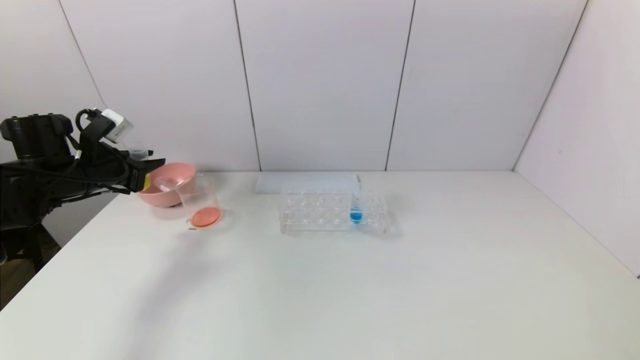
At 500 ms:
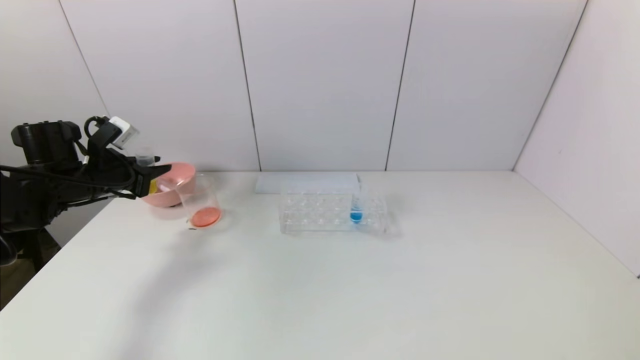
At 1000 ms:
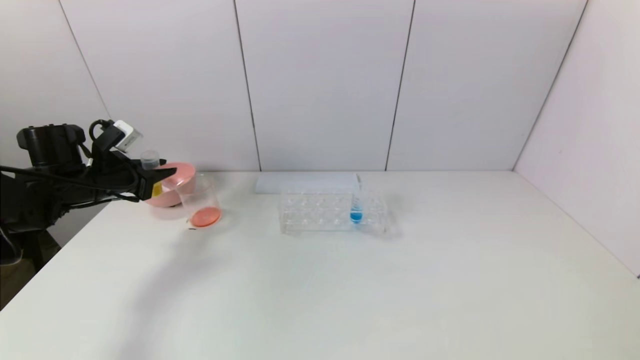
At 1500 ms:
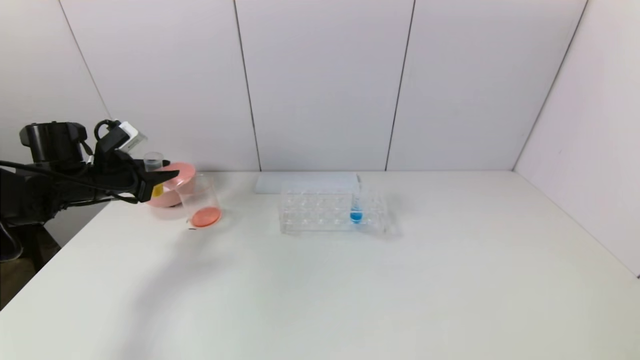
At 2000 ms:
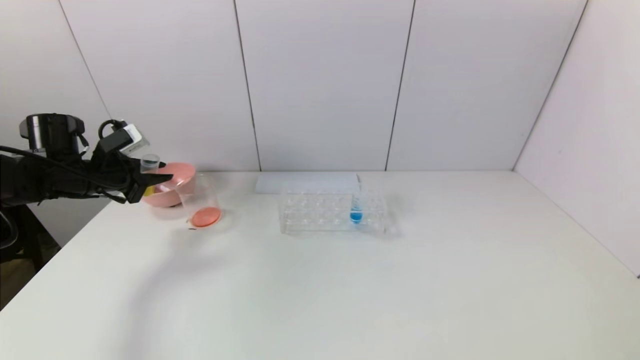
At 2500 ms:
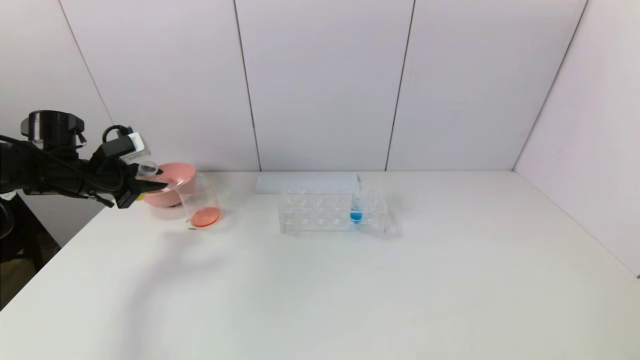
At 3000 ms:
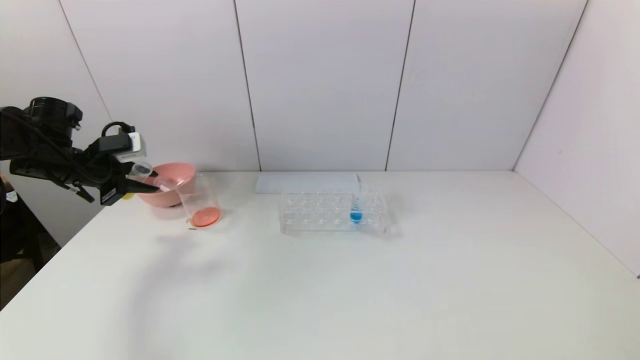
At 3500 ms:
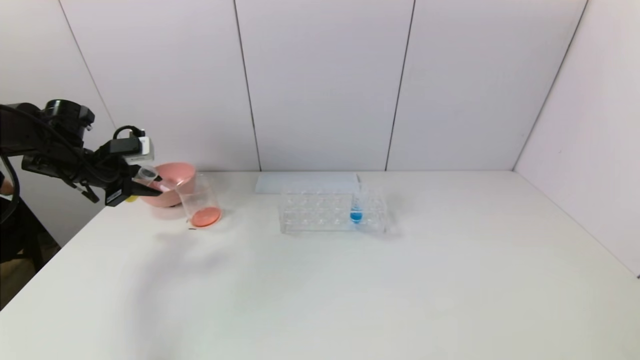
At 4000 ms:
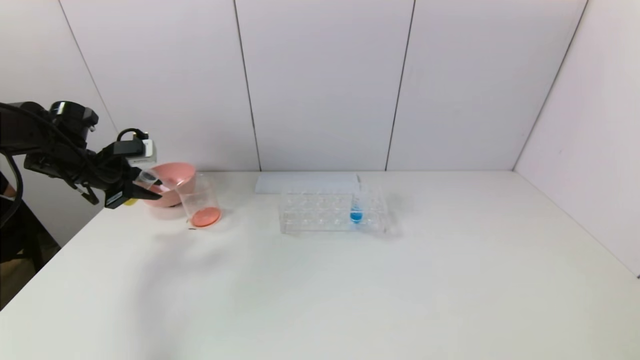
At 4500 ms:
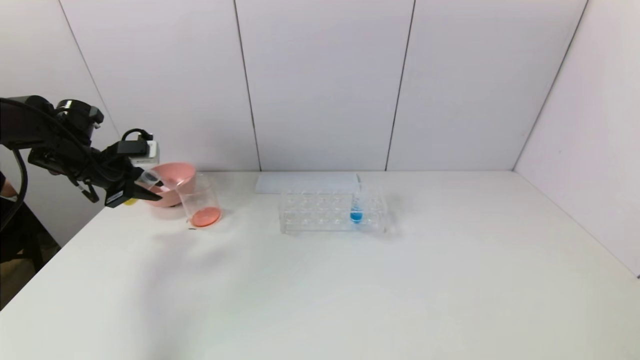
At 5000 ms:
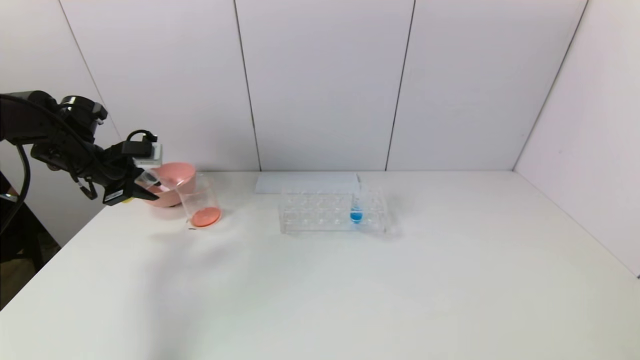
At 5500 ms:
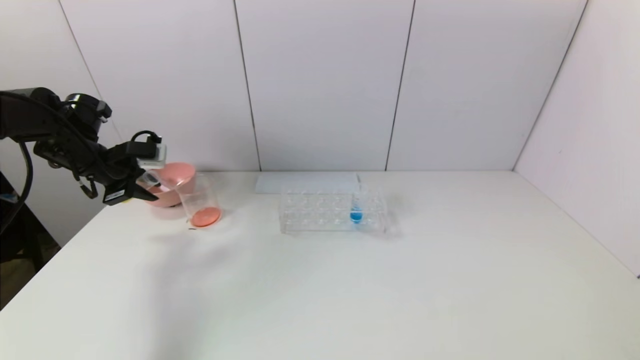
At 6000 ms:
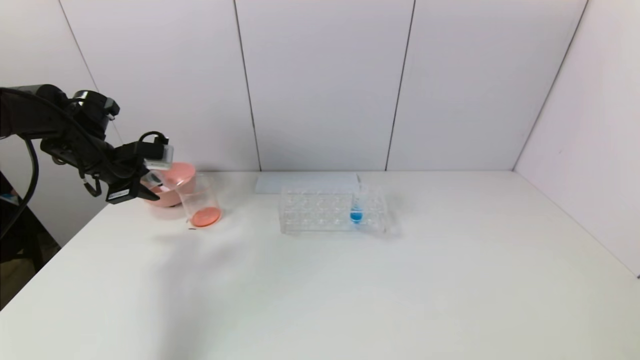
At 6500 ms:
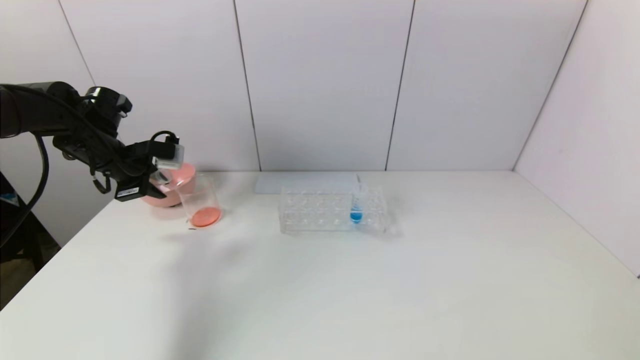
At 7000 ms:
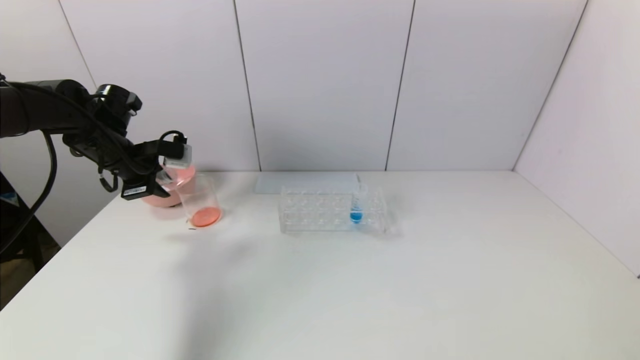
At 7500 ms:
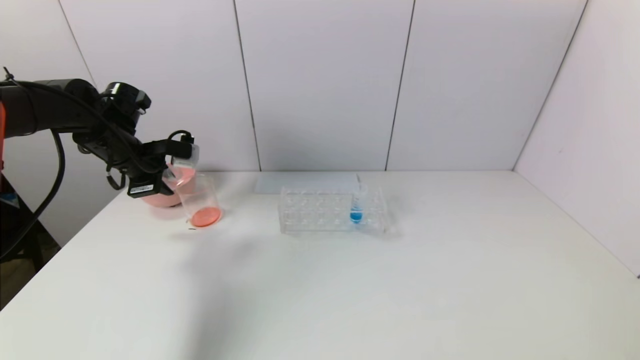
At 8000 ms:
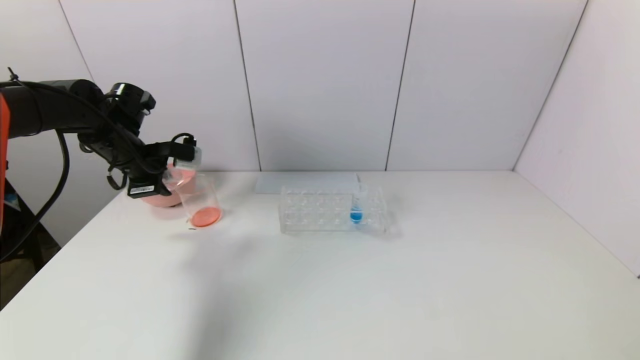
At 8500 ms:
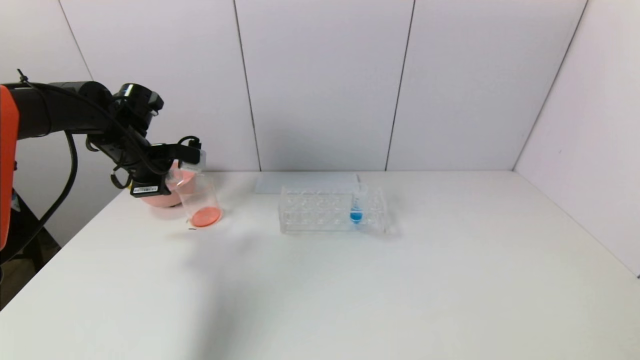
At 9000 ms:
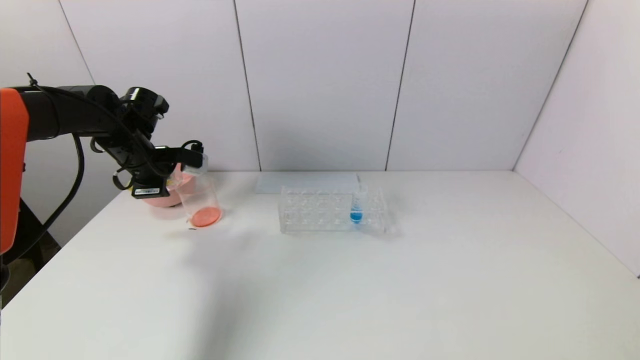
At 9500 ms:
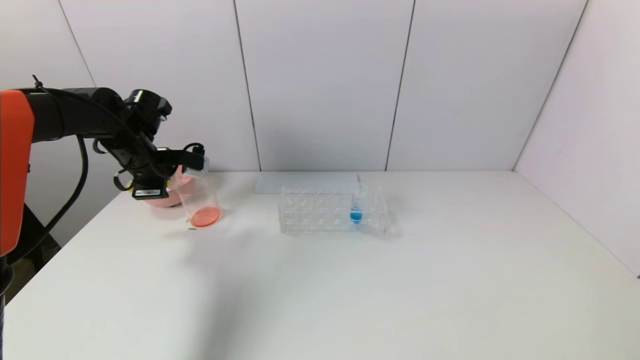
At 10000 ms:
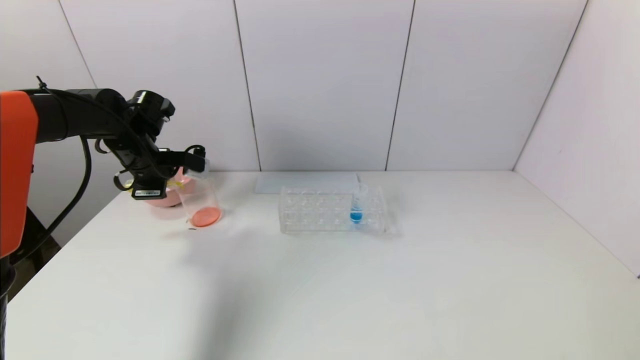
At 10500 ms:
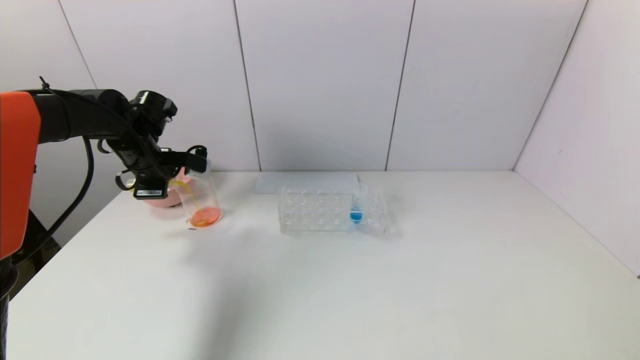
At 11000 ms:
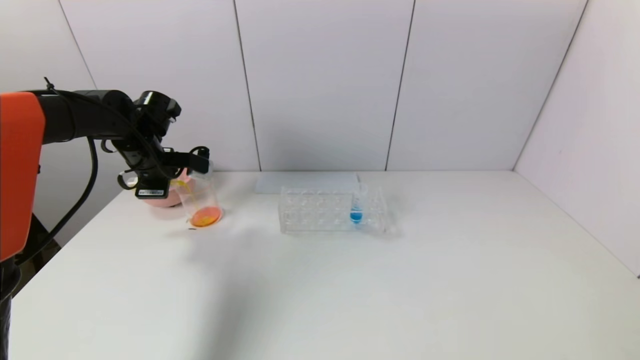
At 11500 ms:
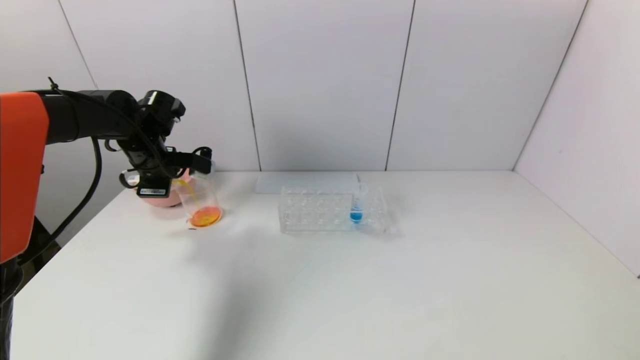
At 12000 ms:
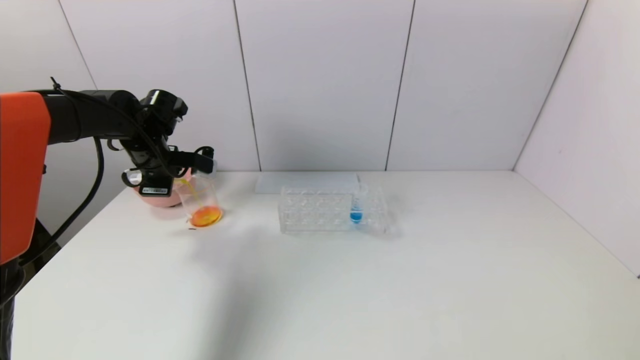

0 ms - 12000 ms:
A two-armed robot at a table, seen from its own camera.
Task of the whole recording: pick up the test tube with yellow pigment and the test tube with red pigment by grippers and pour them into the beaker.
0 ms - 2000 ms: The grippers make only small movements.
4000 ms - 6000 ms: The grippers move only a little.
6000 ms - 8000 ms: The left gripper heads to the right, covering about 5 cm.
8000 ms - 12000 ms: The grippers make only small movements.

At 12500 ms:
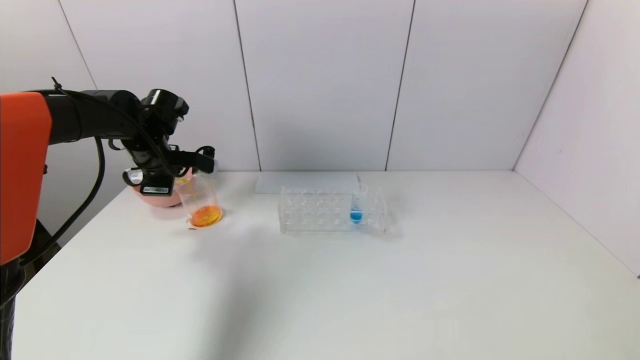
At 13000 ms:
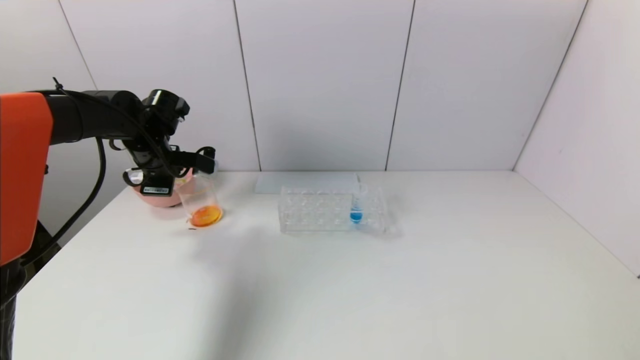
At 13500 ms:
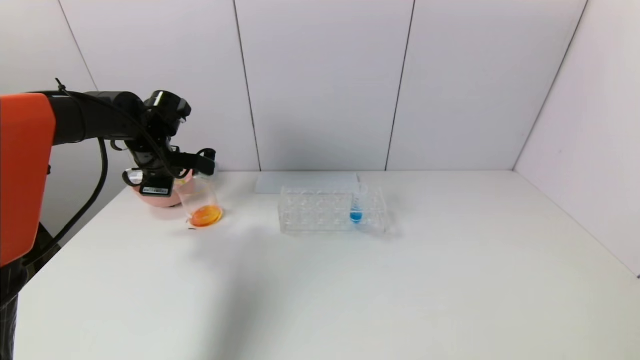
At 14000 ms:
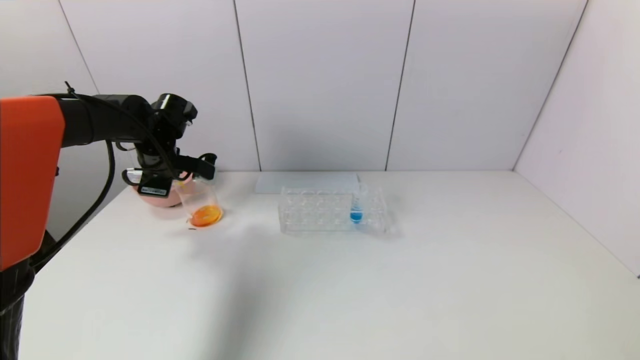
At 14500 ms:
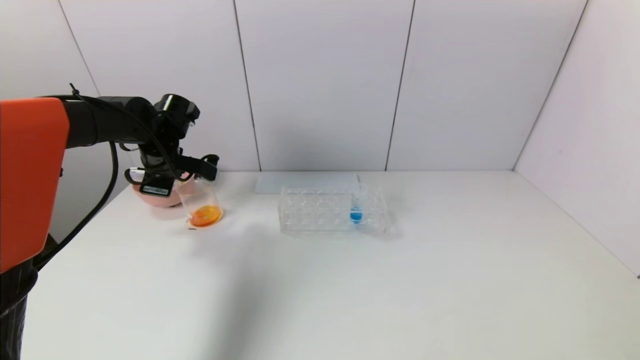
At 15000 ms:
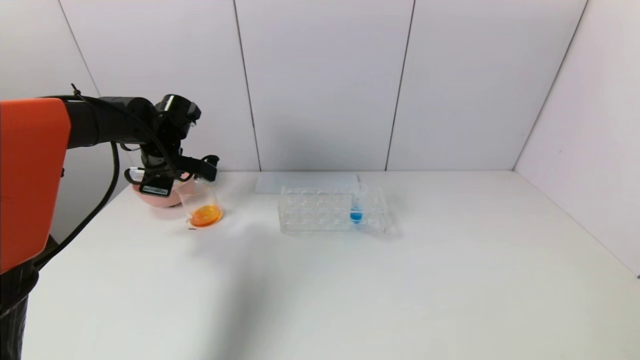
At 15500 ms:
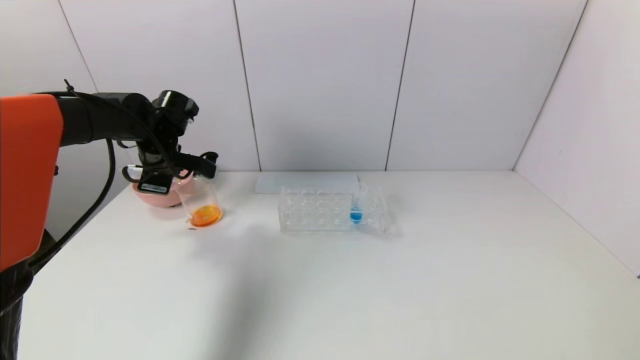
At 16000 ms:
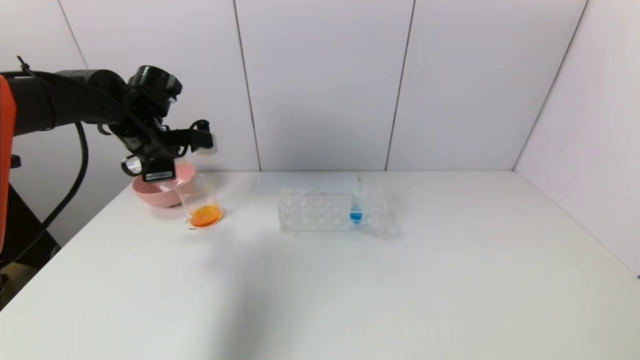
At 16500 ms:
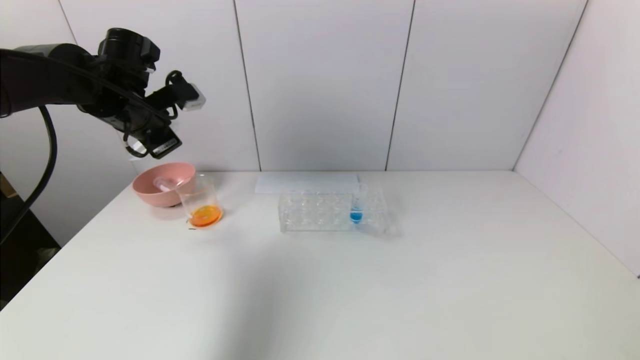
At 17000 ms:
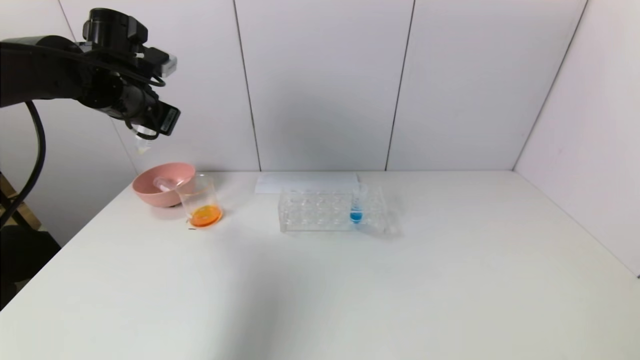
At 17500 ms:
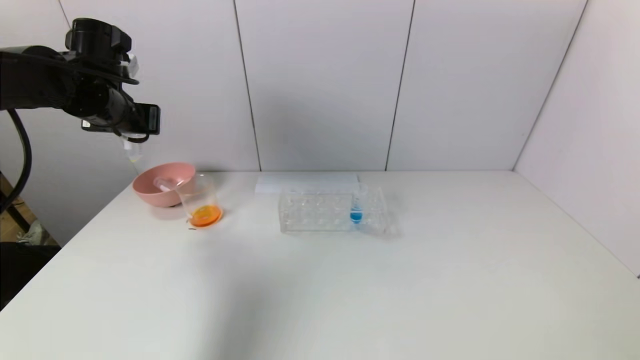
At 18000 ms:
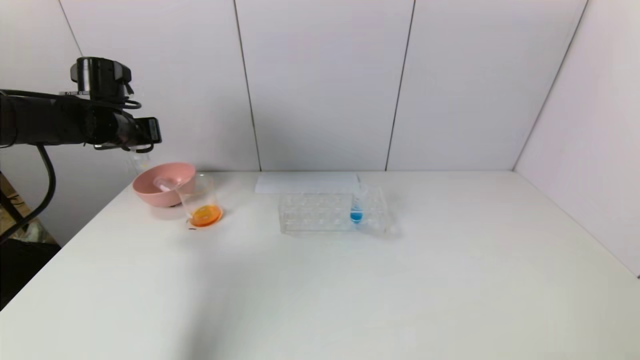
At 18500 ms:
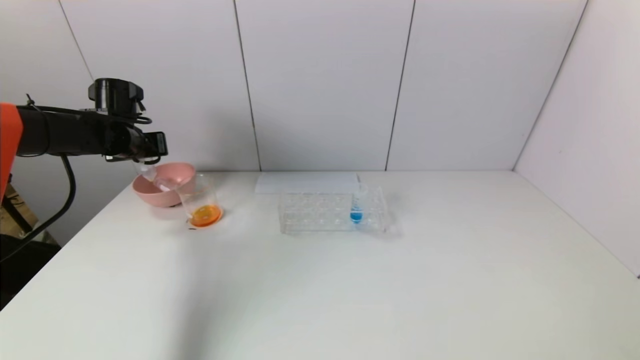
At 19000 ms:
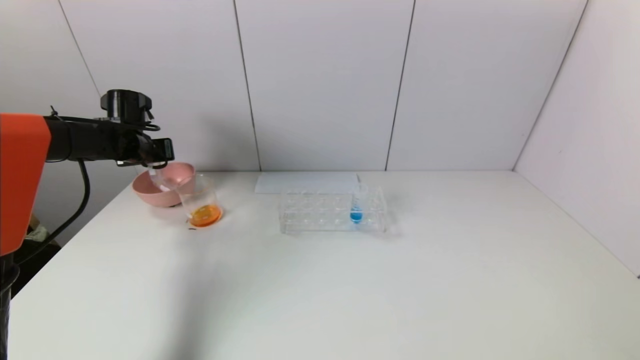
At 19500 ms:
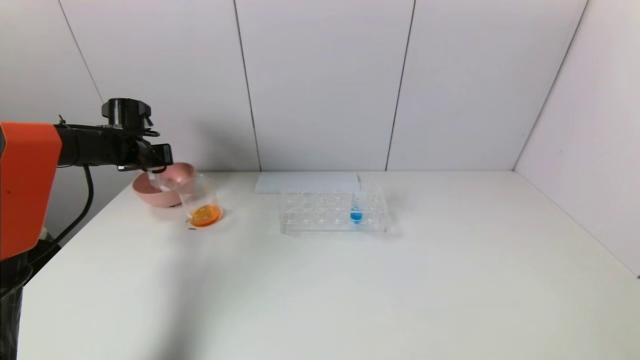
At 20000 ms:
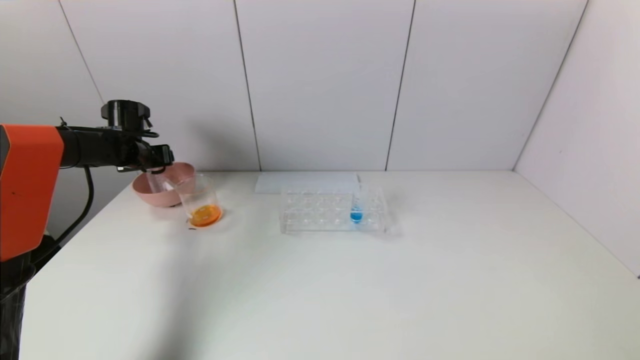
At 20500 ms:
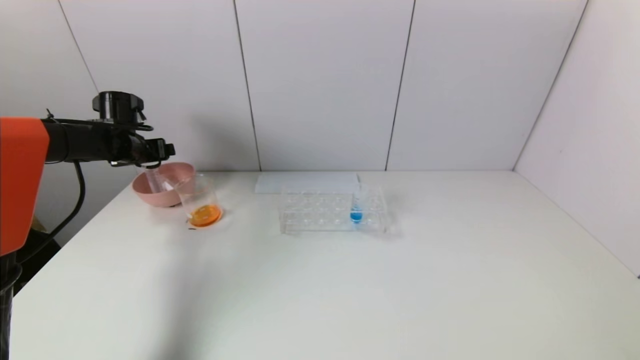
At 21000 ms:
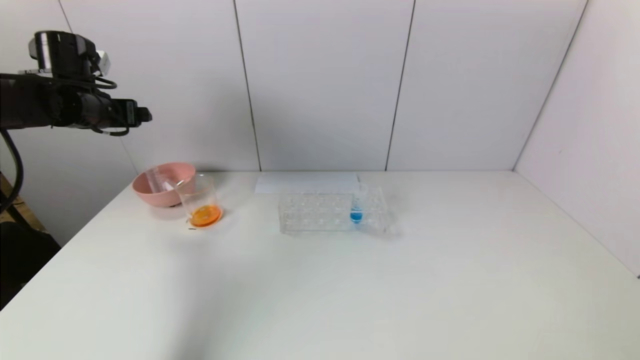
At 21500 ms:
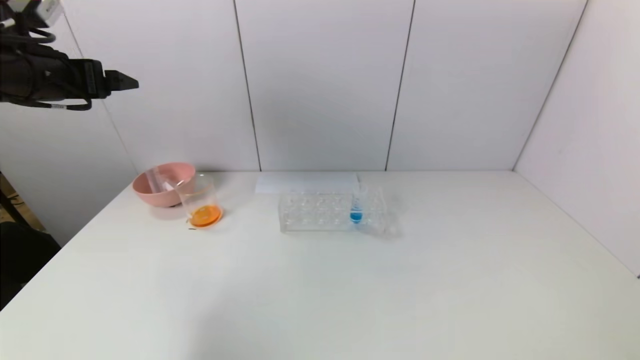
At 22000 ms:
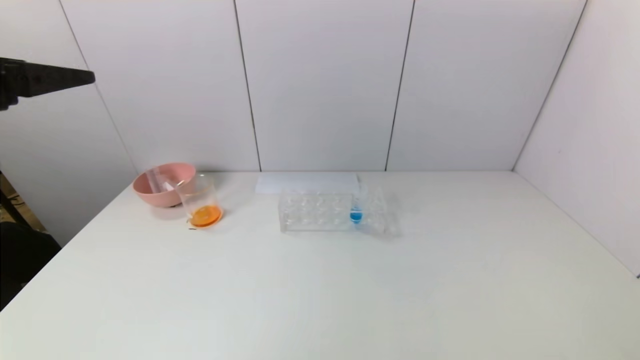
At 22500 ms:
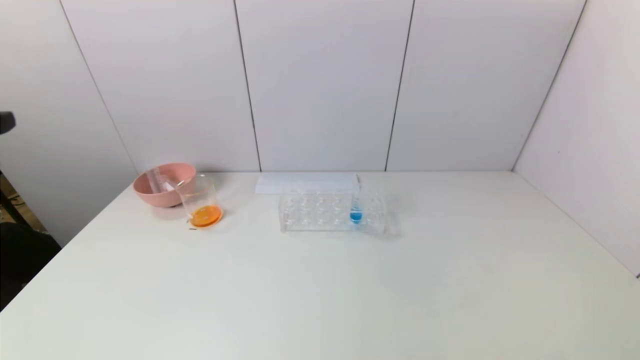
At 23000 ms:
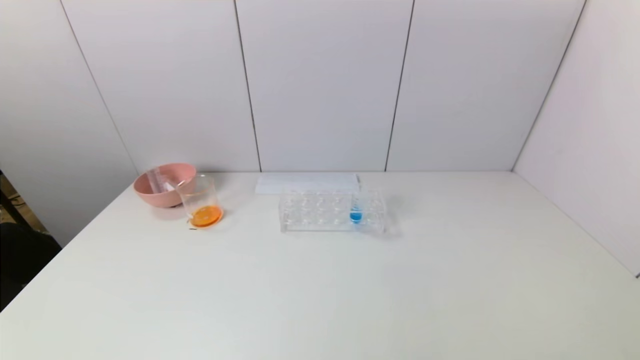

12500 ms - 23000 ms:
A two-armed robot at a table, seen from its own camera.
Task of the whole recording: pick up the test tube with yellow pigment and the test tube with red pigment by grippers and pour them into the beaker.
Step, 12500 ms - 15000 ms: Pour the yellow reagent into the graduated cylinder with the left gripper.
Step, 15500 ms - 20000 ms: Place the test tube into the pink bowl with the left gripper.
12500 ms - 14500 ms: The grippers make only small movements.
14500 ms - 16500 ms: The left gripper travels upward by some 10 cm.
16500 ms - 19000 ms: The left gripper moves downward, forward and to the left, approximately 15 cm.
19000 ms - 21000 ms: The left gripper moves upward and backward, some 15 cm, and opens its fingers.
21000 ms - 23000 ms: The left gripper shifts about 40 cm backward.
